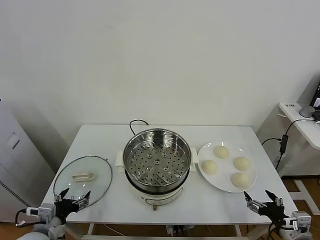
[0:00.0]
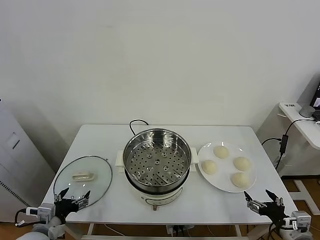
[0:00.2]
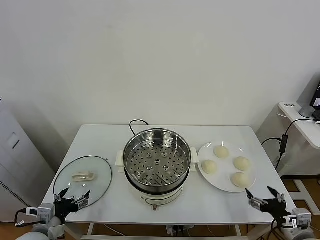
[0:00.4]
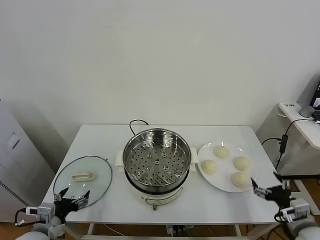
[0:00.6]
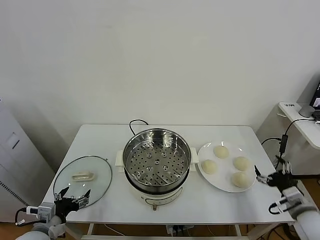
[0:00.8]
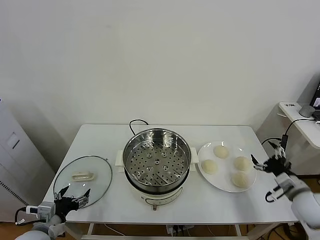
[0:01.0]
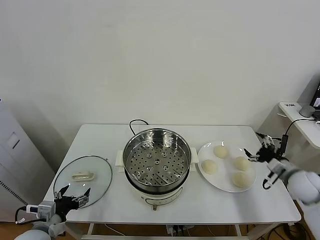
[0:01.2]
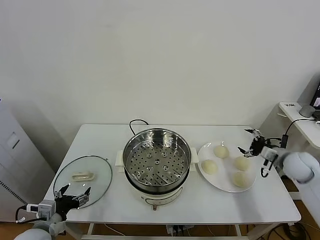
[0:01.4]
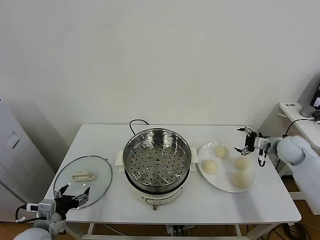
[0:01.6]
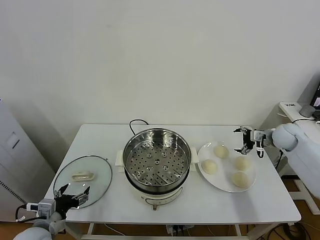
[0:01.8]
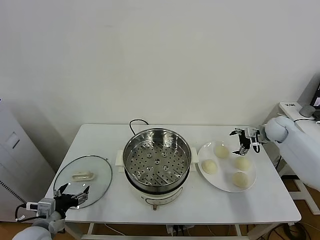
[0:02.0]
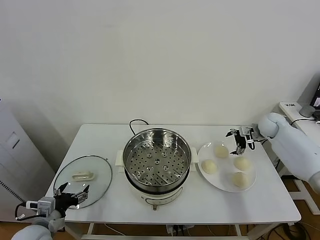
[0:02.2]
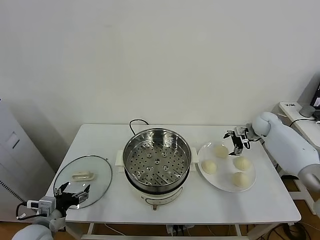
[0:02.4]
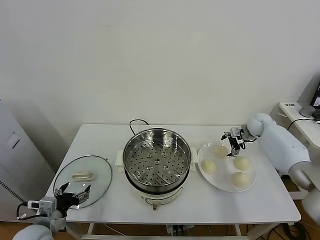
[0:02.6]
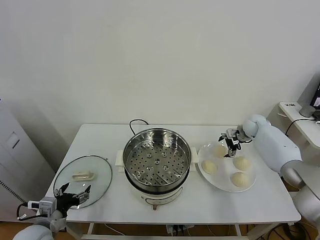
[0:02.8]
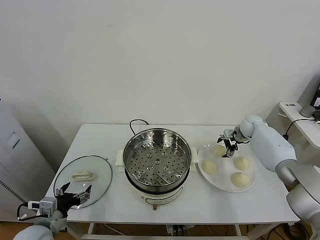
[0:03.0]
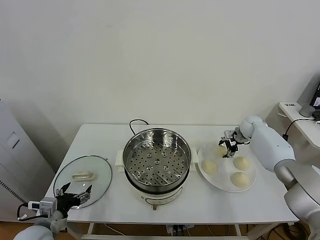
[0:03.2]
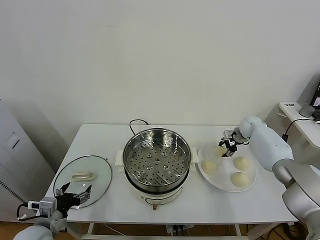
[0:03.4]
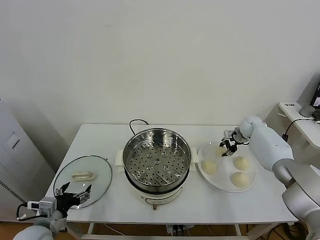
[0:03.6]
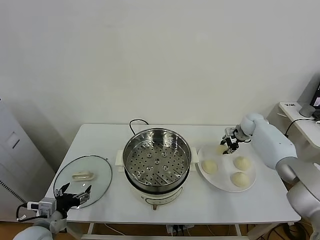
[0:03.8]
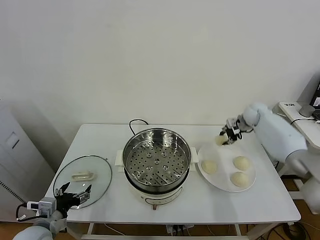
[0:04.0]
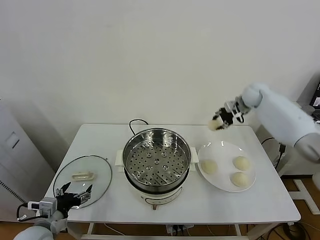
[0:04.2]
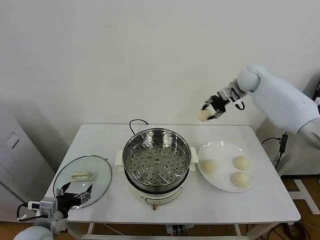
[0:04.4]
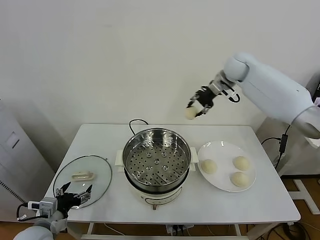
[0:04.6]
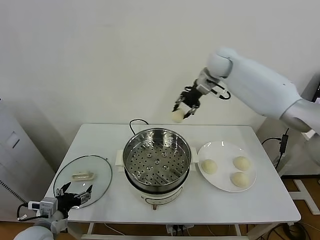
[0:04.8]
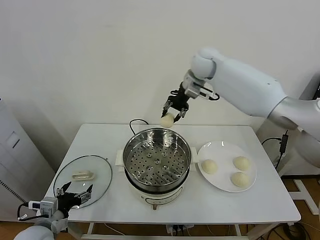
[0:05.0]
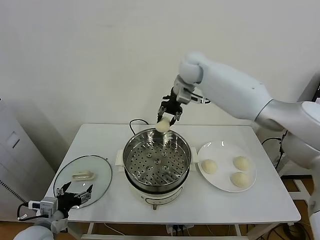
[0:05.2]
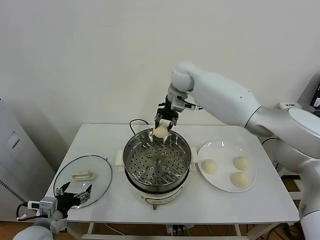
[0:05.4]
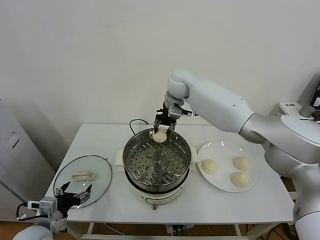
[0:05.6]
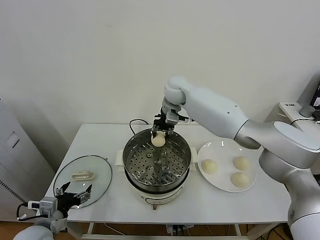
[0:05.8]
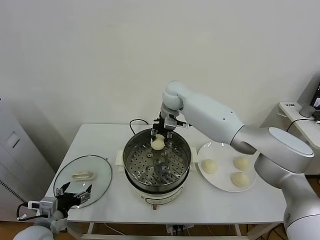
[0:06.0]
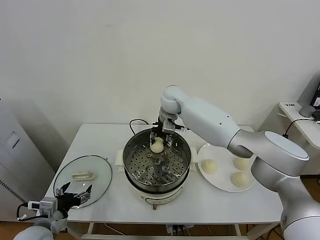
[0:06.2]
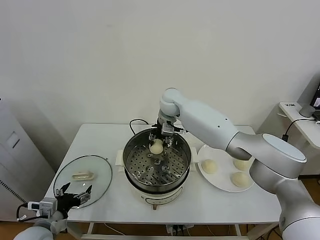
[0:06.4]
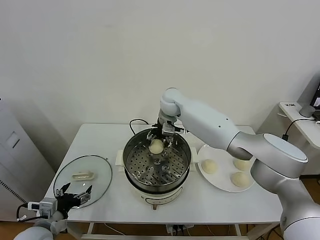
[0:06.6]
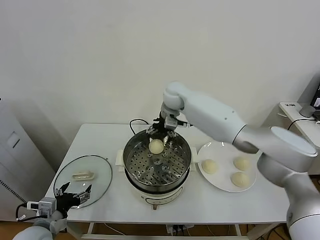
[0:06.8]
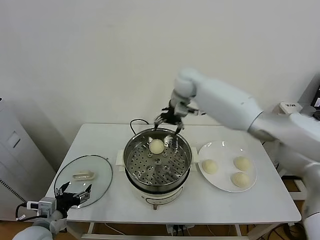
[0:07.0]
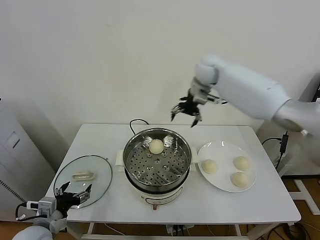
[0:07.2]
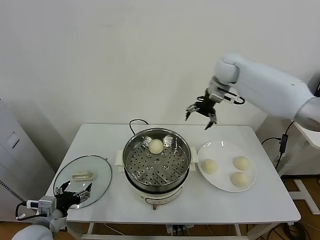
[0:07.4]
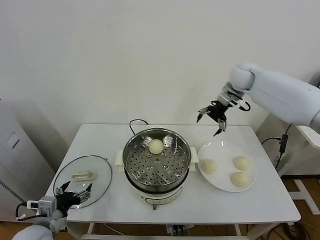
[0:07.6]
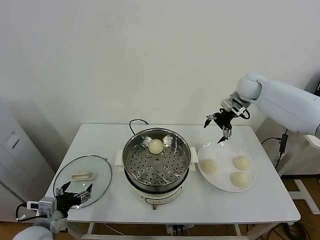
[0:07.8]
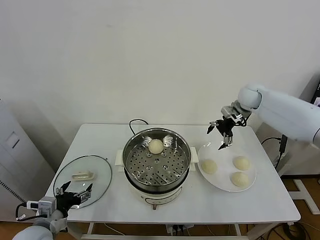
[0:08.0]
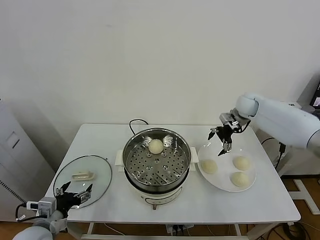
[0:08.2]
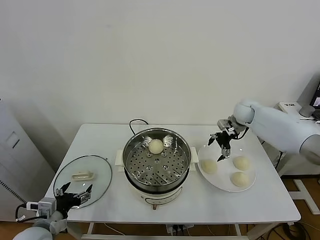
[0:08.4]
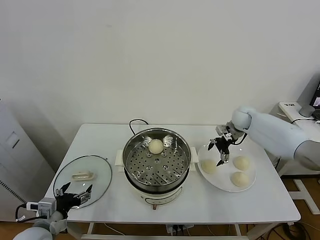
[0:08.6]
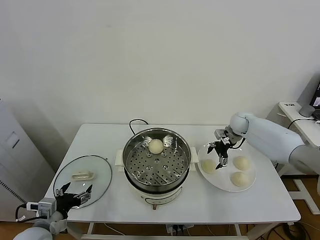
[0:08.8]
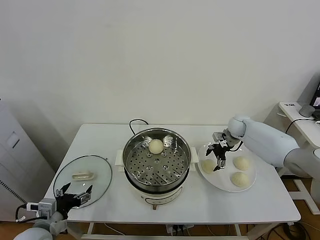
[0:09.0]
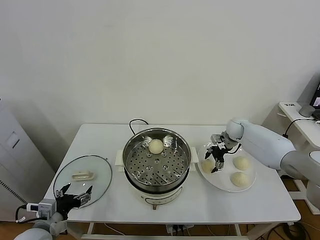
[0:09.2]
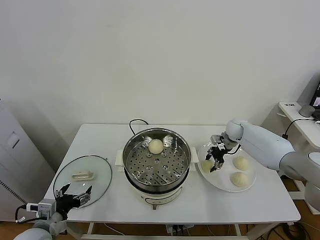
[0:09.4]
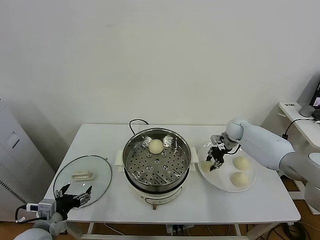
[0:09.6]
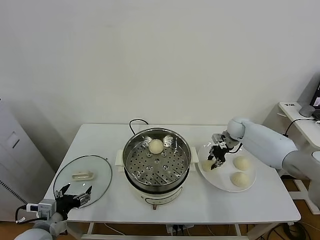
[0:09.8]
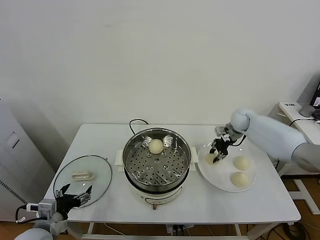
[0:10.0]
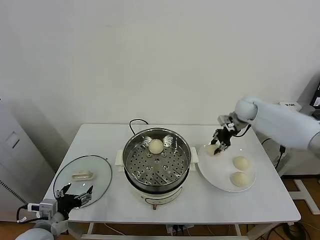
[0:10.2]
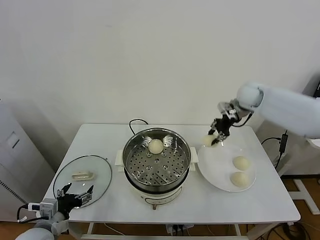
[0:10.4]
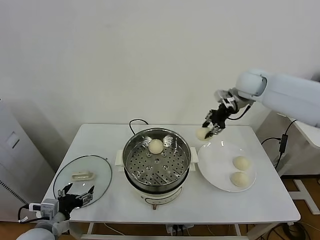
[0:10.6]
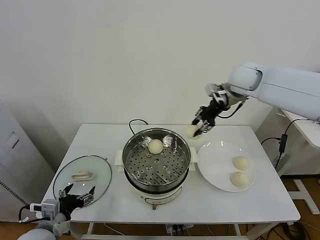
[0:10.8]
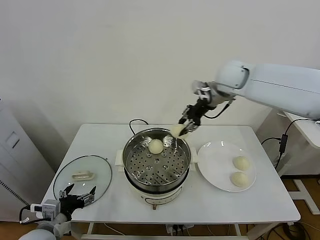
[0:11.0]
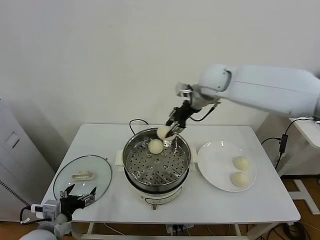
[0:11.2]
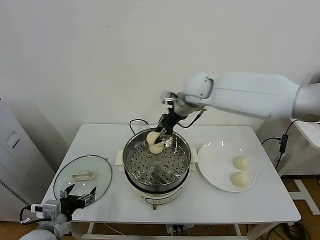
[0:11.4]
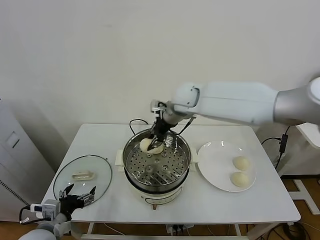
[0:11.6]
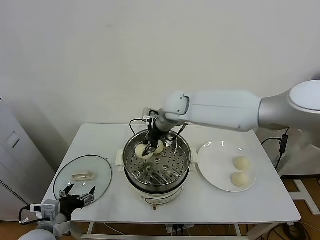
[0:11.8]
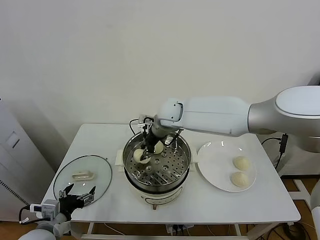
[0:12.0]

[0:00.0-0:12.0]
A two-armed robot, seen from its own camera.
Task of the whole recording: take steamed baozi put them in steamer.
Step, 0:00.0 to 0:03.4: Grasp the baozi in the plate with right gripper.
Step, 0:03.8 to 0:06.8: Place the baozi on the steamer with right gripper.
Step, 0:07.0 to 0:09.4: Grasp the baozi in the plate with right gripper.
0:01.6 to 0:03.0: The right gripper heads forward, to the left and downward, covering roughly 15 cm.
0:03.0 to 0:04.4: The right gripper is displaced upward and to the left by roughly 30 cm, and closes up.
0:04.4 to 0:06.0: The right gripper heads to the left and downward, covering approximately 25 cm.
0:06.0 to 0:07.6: The right gripper travels to the right by roughly 25 cm, and opens up.
0:07.6 to 0:09.0: The right gripper travels downward by approximately 20 cm.
0:09.0 to 0:10.4: The right gripper shifts some 20 cm upward, and closes its fingers.
0:10.4 to 0:12.0: The right gripper is displaced to the left by about 30 cm.

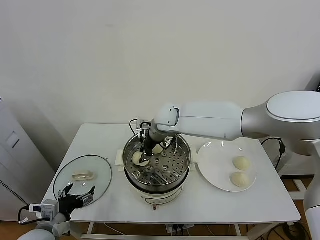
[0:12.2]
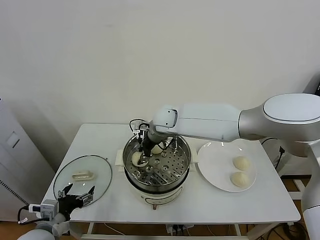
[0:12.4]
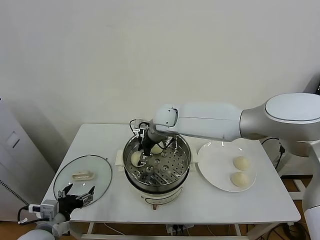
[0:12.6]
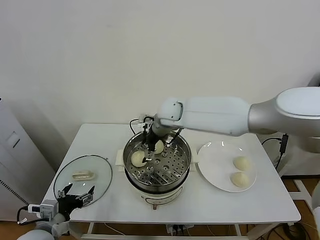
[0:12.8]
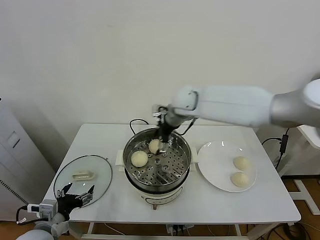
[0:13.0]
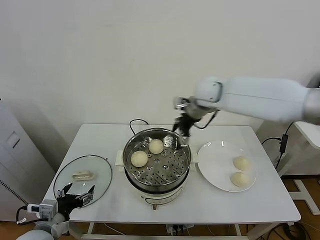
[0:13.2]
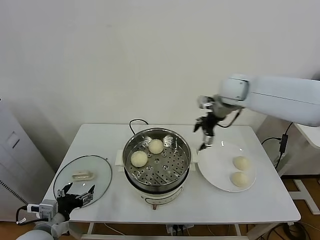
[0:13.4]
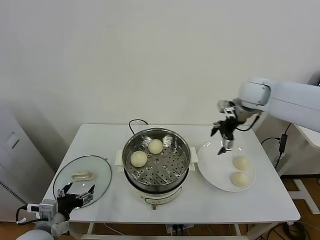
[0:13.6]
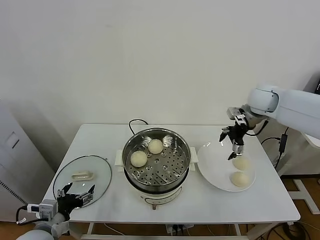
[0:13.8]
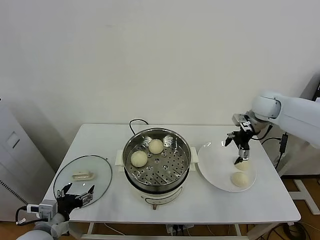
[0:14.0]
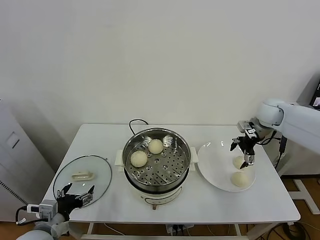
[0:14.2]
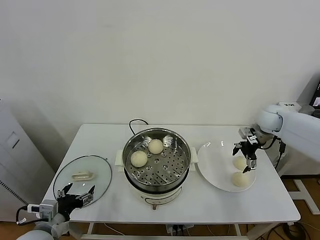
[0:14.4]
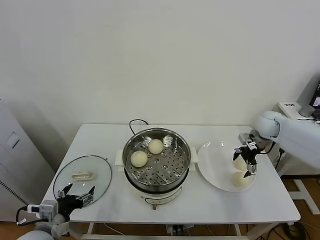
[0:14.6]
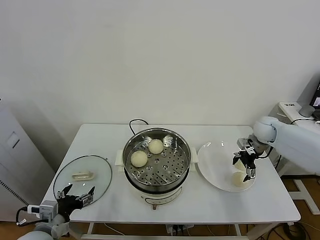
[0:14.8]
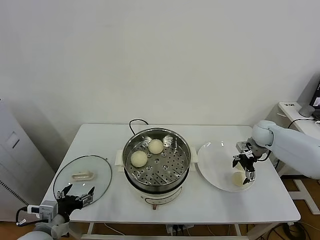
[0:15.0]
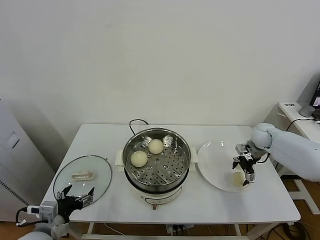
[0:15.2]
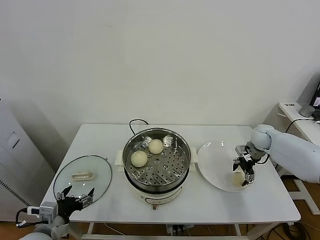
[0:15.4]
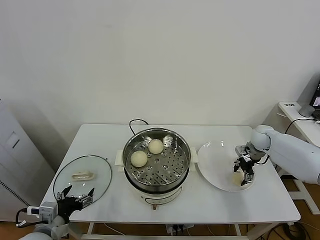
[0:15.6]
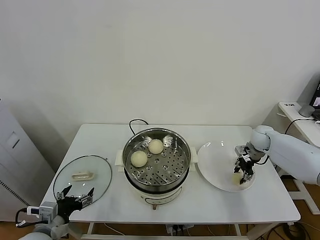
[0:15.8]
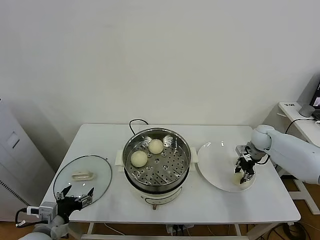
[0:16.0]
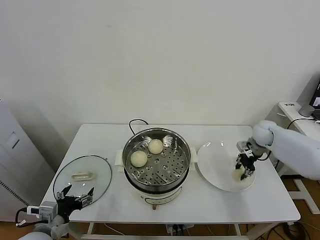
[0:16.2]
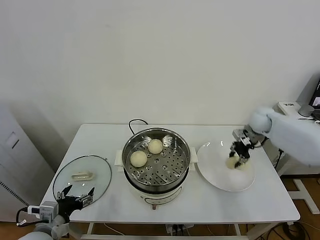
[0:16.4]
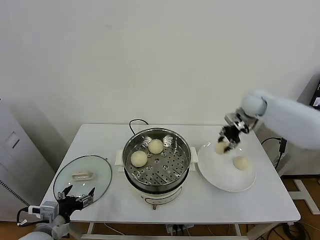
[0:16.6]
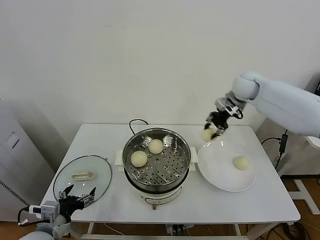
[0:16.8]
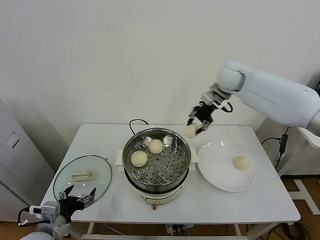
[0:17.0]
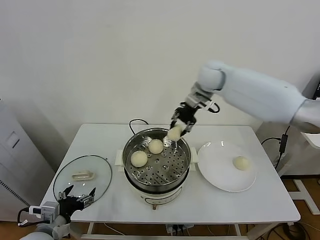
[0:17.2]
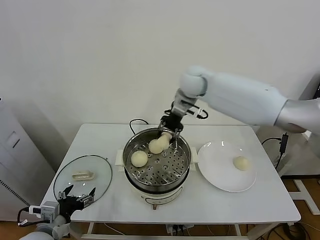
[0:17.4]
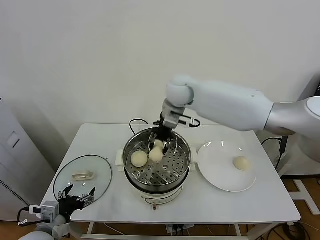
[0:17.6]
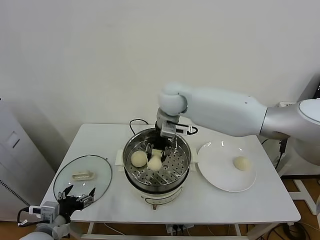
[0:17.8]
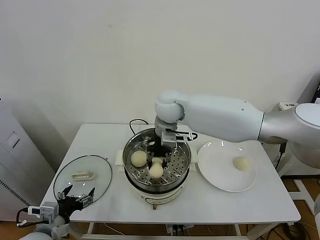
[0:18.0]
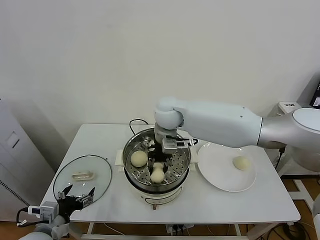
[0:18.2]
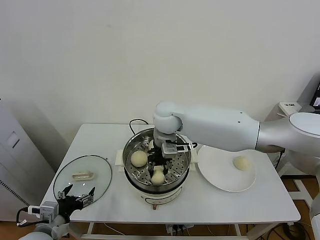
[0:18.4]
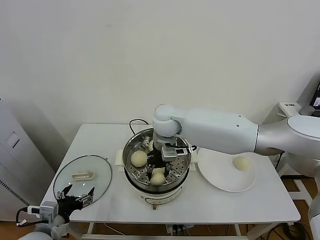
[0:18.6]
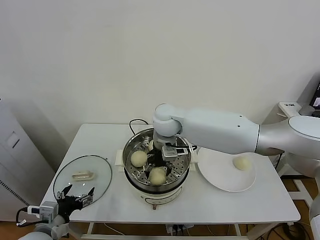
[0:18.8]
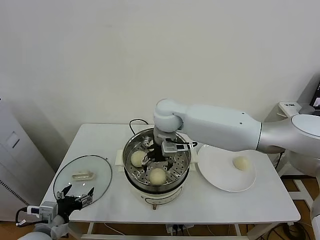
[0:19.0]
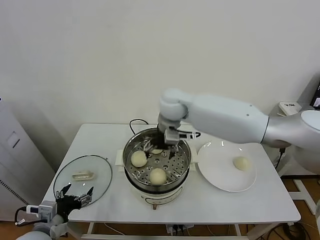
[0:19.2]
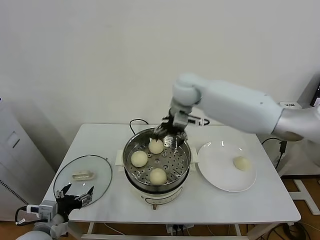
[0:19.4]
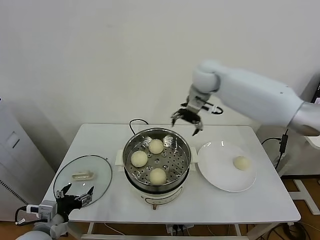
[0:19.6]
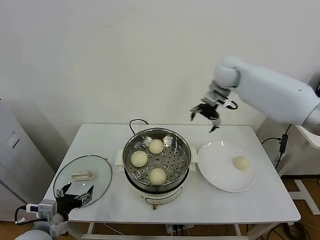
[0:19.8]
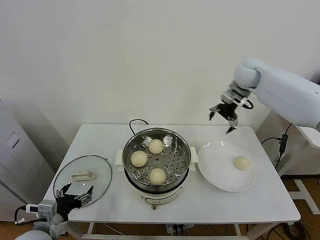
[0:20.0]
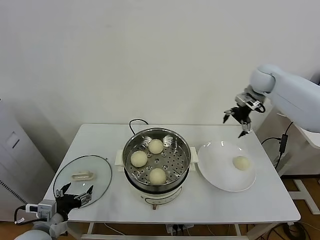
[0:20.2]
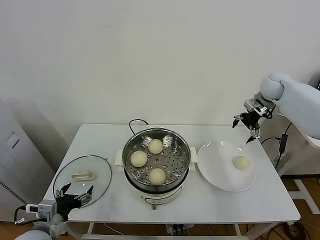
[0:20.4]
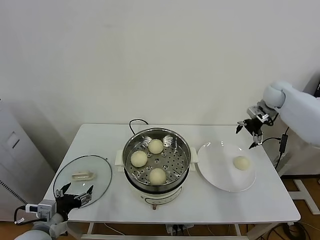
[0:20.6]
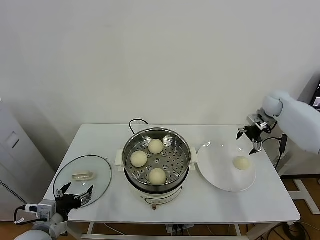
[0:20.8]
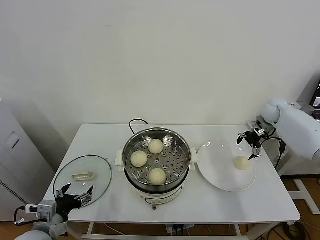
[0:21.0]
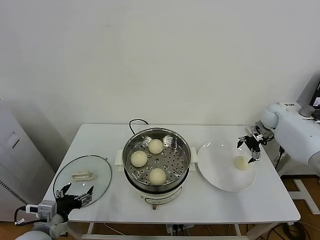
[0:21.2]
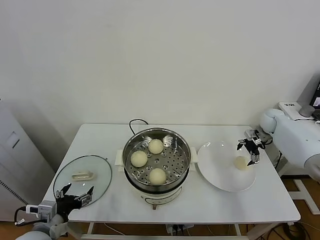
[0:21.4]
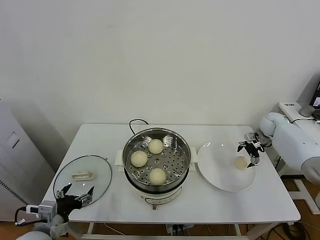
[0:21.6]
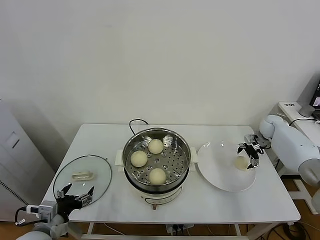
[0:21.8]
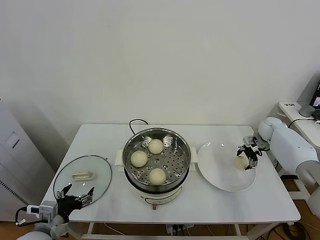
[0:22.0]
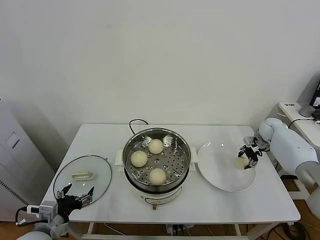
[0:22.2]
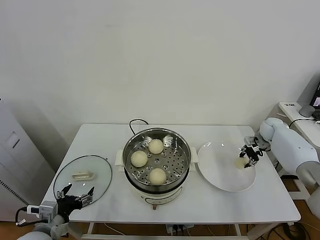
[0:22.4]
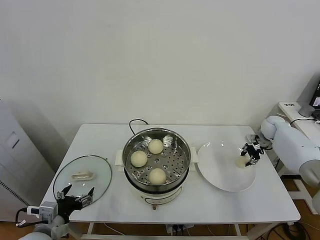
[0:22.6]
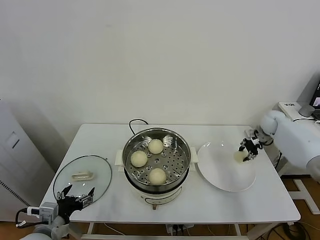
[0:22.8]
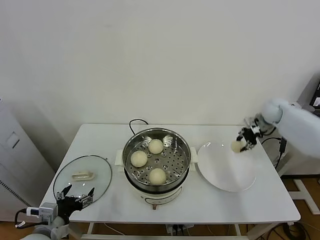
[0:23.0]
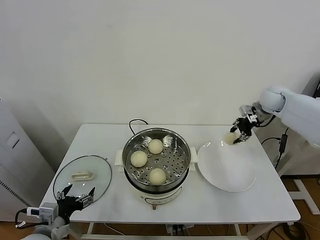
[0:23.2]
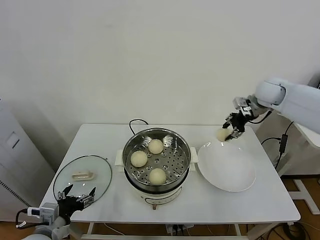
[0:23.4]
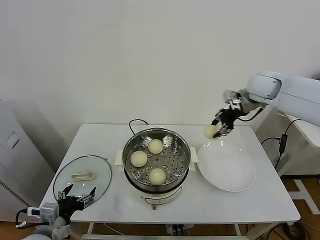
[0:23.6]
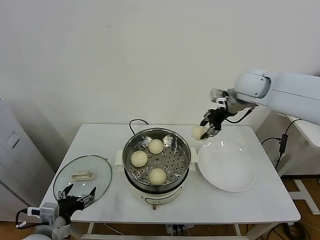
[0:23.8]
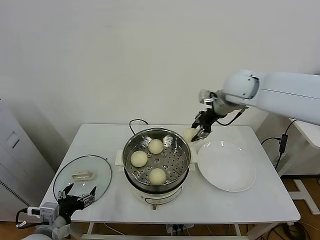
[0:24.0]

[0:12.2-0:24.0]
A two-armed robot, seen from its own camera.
Task of the whole recording: take steamed baozi put them in steamer.
Step, 0:13.0 to 0:15.8: Grasp the baozi in the plate with right gripper.
Step, 0:16.0 to 0:19.0: Place the baozi on the steamer with right gripper.
Step, 0:19.4 to 0:22.4: Grasp the baozi in the plate with right gripper.
0:12.2 to 0:13.6: The right gripper is displaced to the right by some 30 cm, and opens.
0:13.6 to 0:15.2: The right gripper shifts some 20 cm downward and to the right.
0:15.2 to 0:16.6: The right gripper moves upward and to the left, approximately 20 cm, and closes.
0:16.6 to 0:18.2: The right gripper shifts roughly 30 cm to the left.
0:18.2 to 0:19.6: The right gripper shifts roughly 20 cm to the right, upward and forward, and opens up.
0:19.6 to 0:21.0: The right gripper moves to the right and downward, approximately 35 cm.
0:21.0 to 0:22.6: The right gripper goes roughly 5 cm downward, and closes.
0:22.6 to 0:24.0: The right gripper goes roughly 35 cm to the left and upward.
